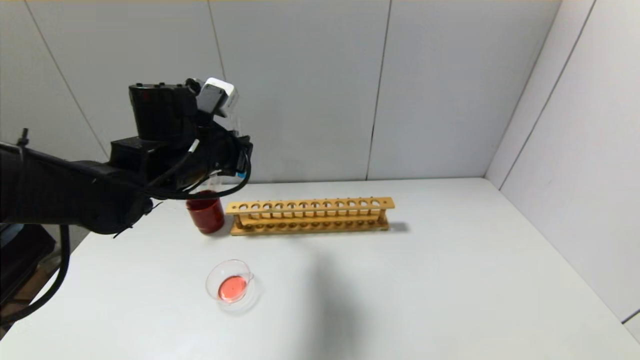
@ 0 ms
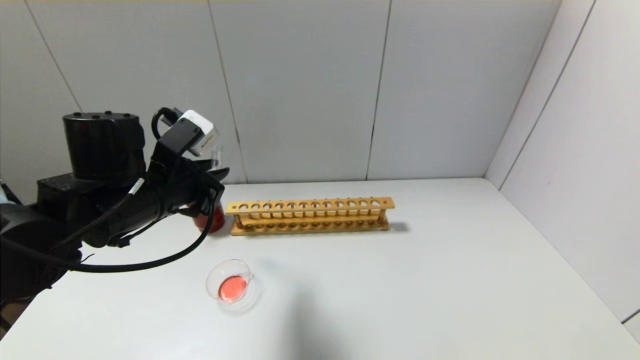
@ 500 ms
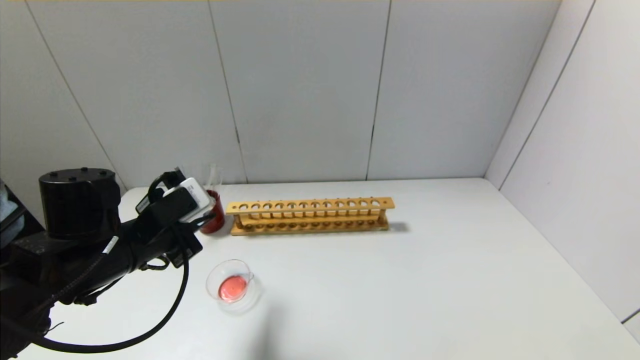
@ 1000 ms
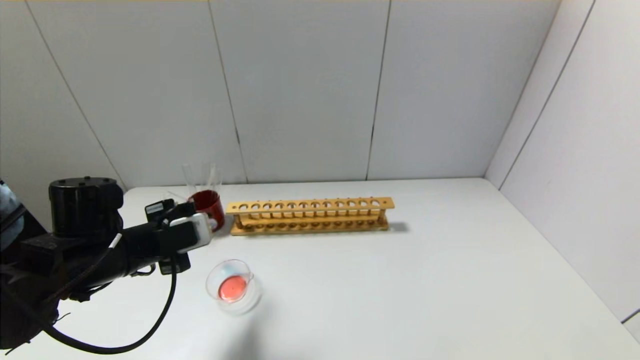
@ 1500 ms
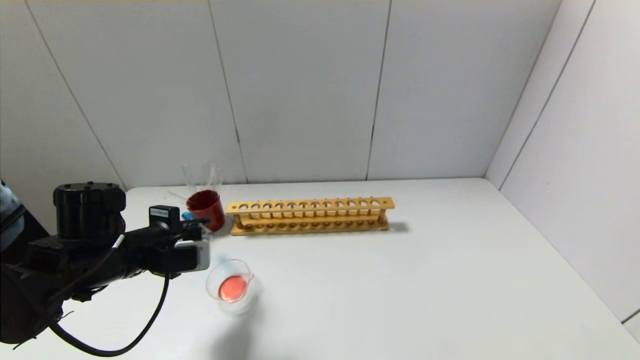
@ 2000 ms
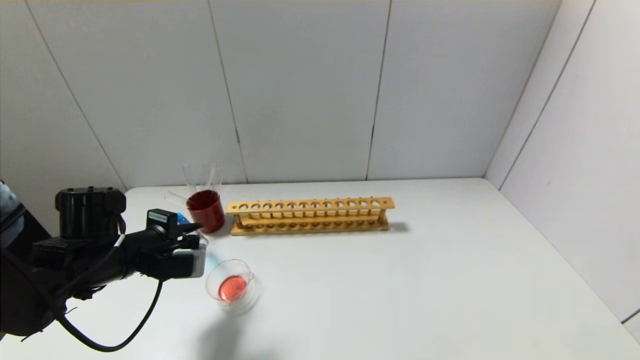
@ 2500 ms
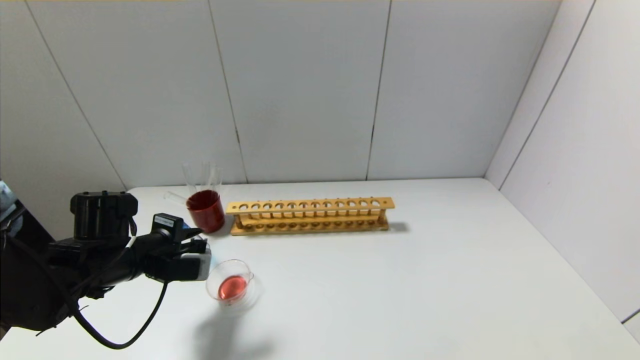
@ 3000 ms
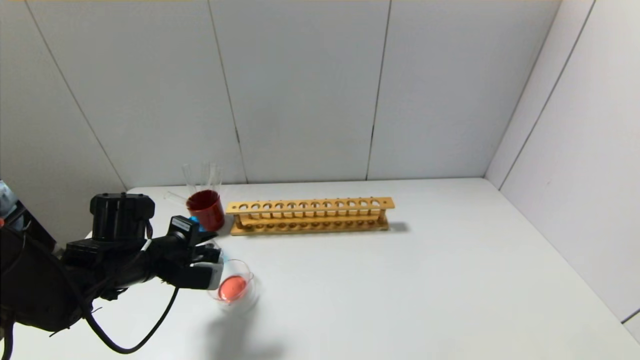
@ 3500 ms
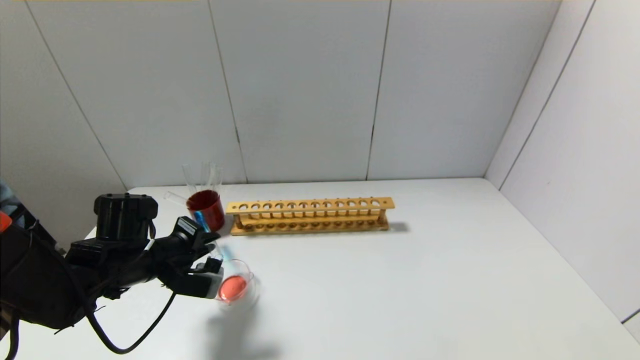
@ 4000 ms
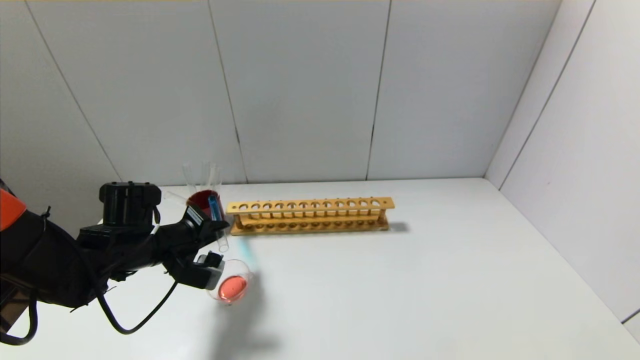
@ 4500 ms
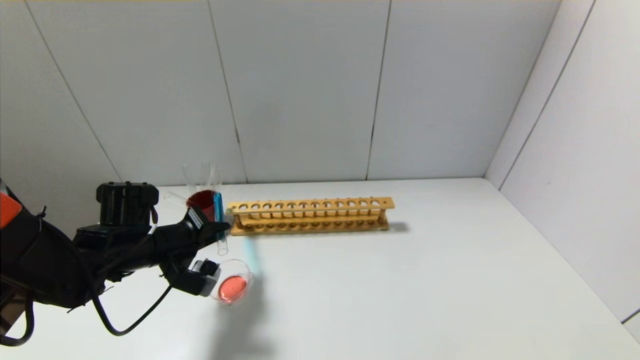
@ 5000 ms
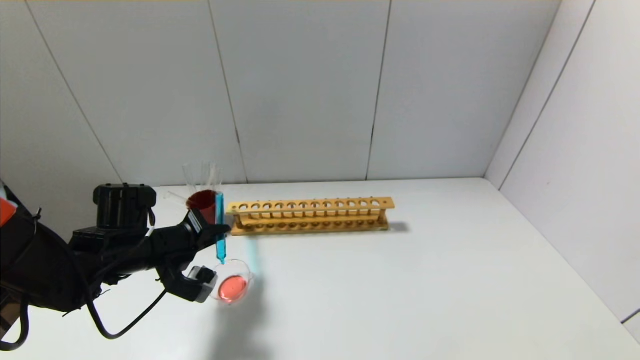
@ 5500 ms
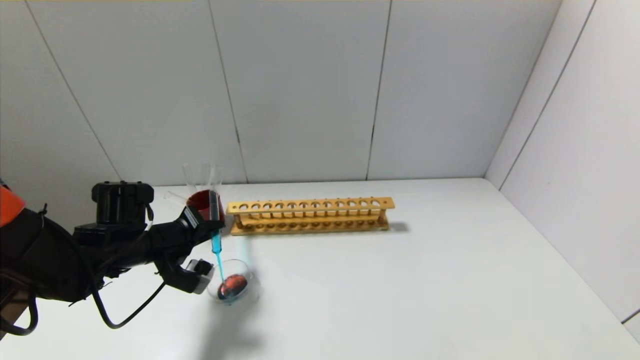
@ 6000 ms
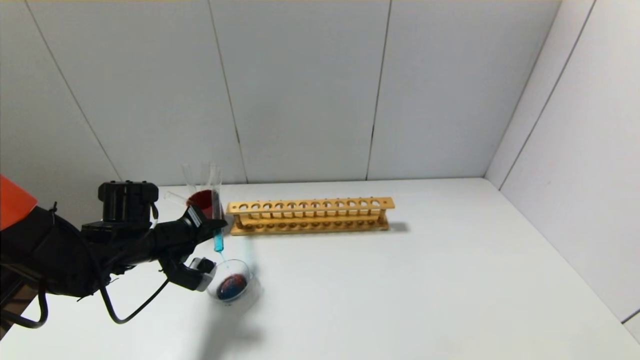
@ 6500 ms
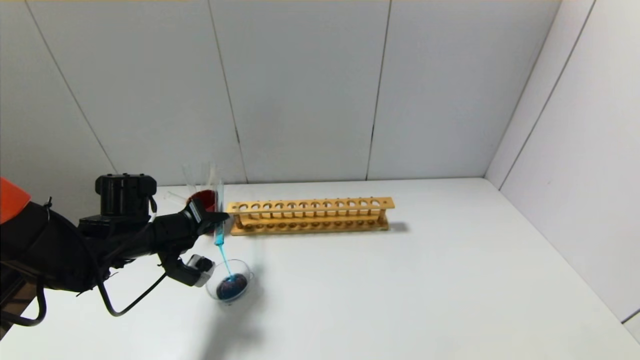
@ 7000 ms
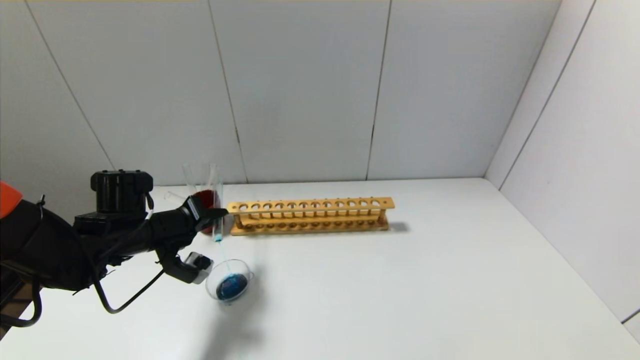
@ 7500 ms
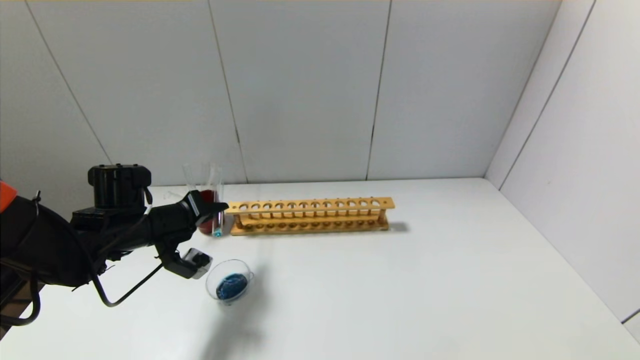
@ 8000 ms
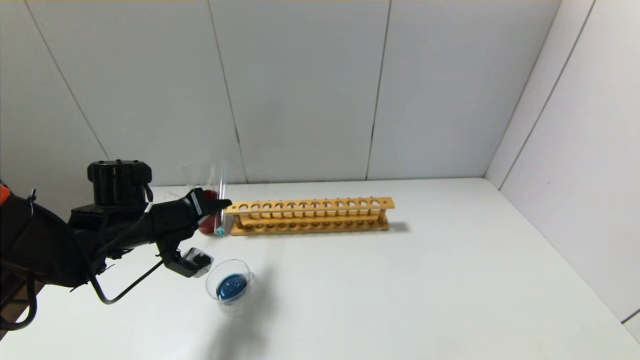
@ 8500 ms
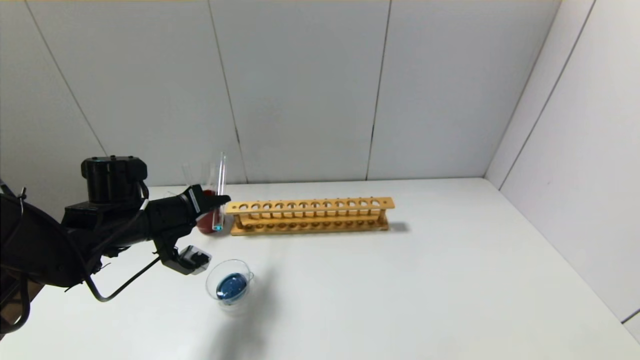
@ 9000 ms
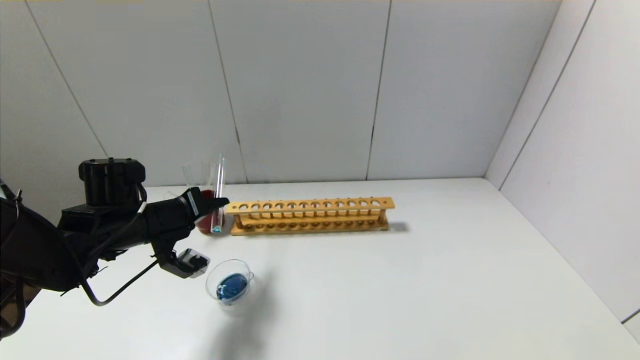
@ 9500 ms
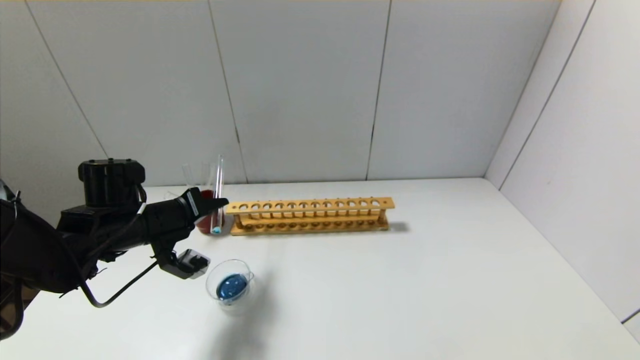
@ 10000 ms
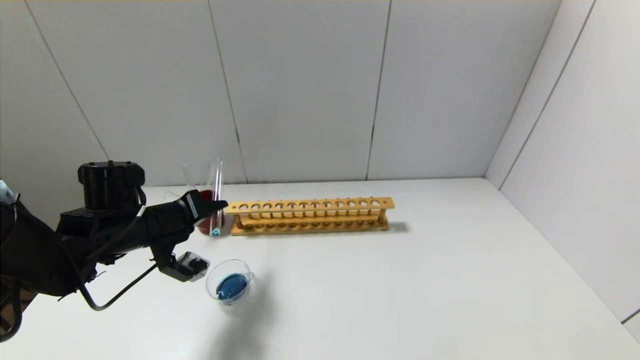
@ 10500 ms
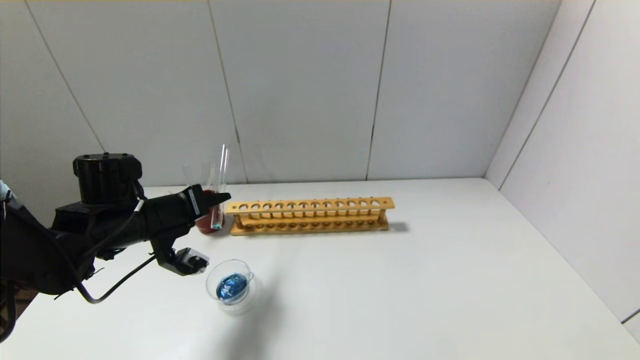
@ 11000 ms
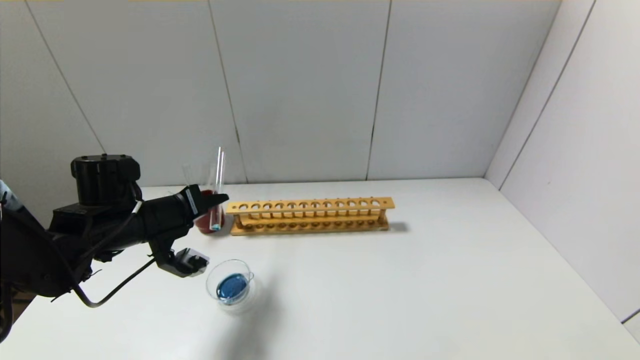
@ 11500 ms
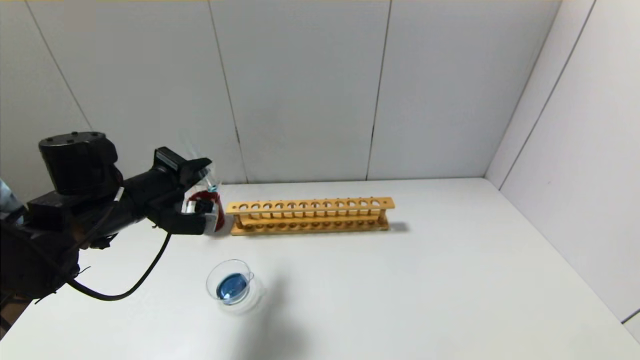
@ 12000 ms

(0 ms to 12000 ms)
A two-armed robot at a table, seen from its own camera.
Step, 0 ms - 11500 ms: Pour the blue reagent into the graduated cylinder with the left gripper.
0 ms - 2000 ms: The left gripper is displaced downward, to the left and backward by about 15 cm.
6000 ms - 8000 ms: The grippers make only small movements.
8000 ms - 10000 ms: The grippers make only small movements.
10000 ms - 12000 ms: The left gripper shifts by approximately 5 cm.

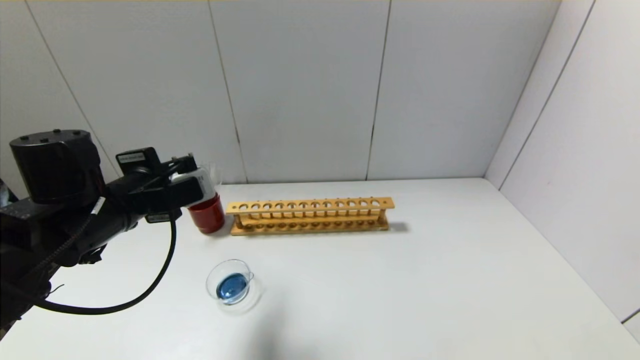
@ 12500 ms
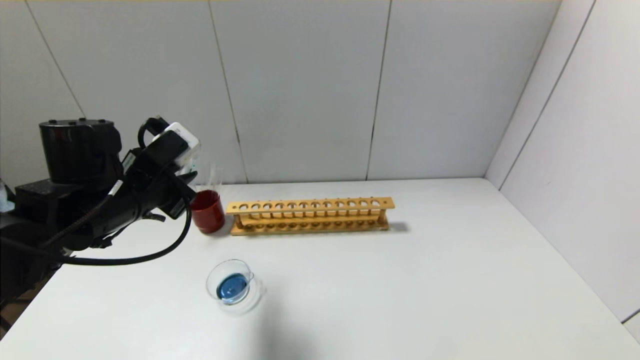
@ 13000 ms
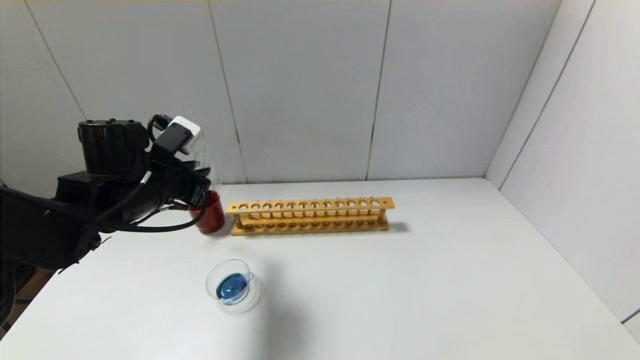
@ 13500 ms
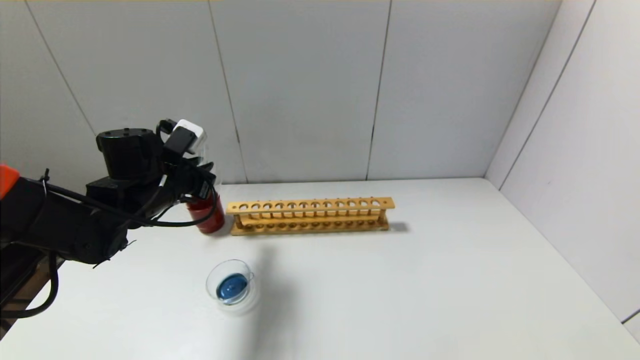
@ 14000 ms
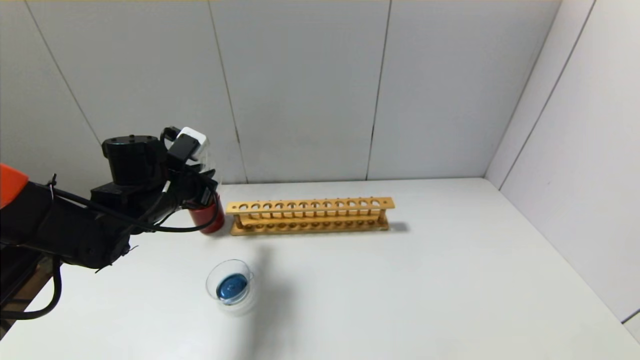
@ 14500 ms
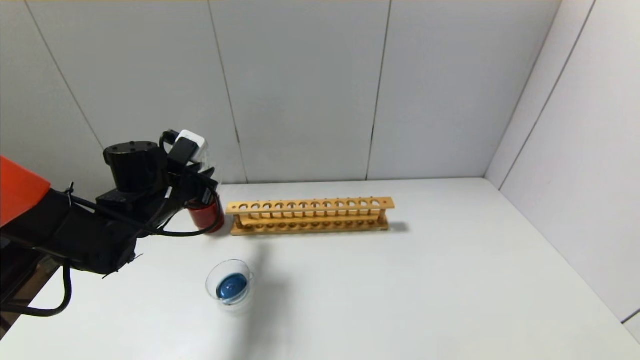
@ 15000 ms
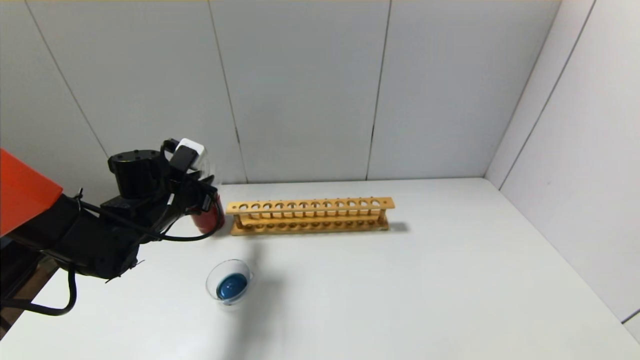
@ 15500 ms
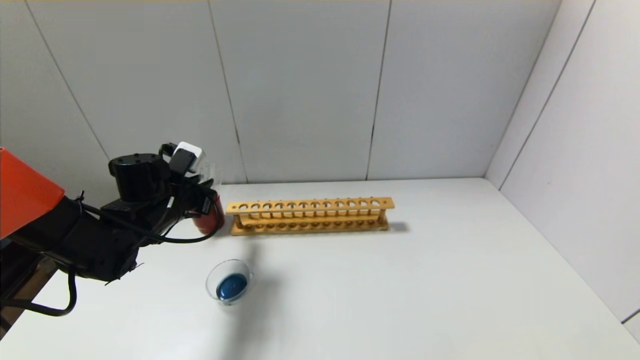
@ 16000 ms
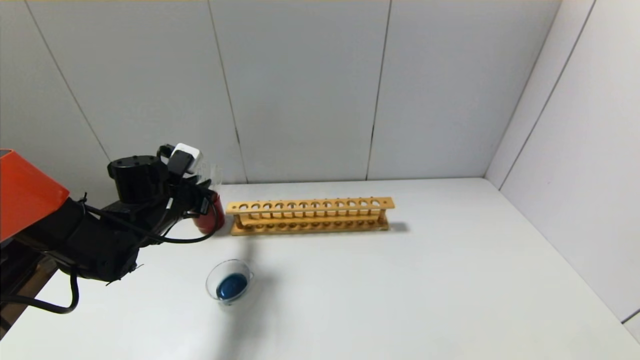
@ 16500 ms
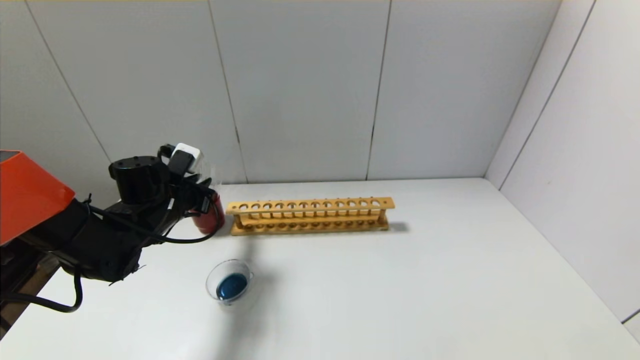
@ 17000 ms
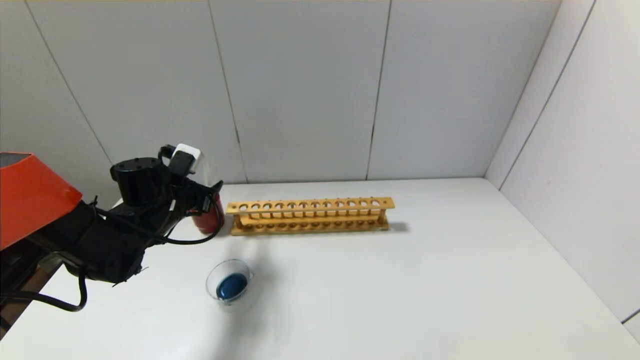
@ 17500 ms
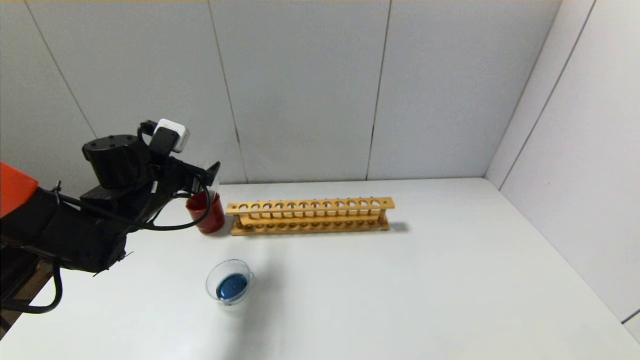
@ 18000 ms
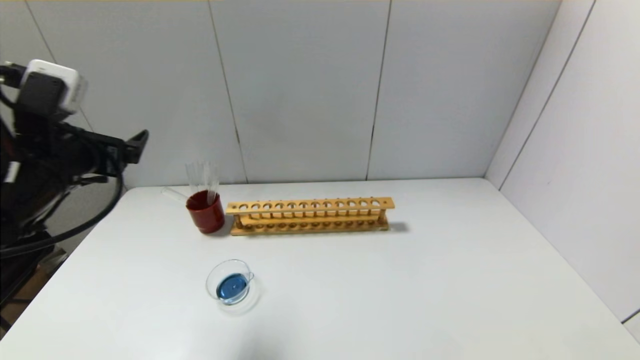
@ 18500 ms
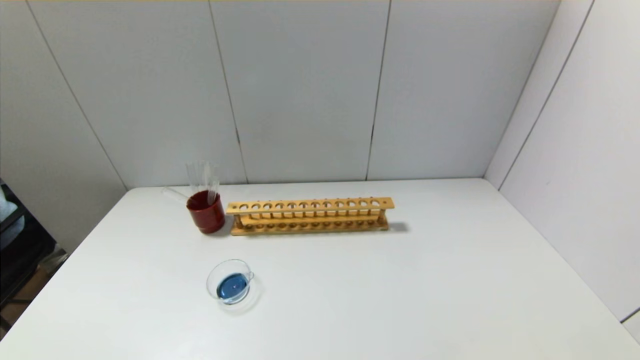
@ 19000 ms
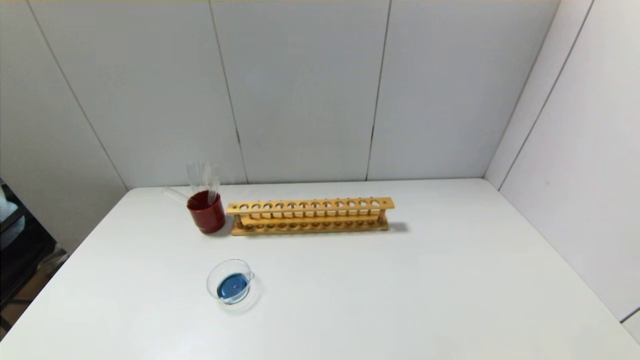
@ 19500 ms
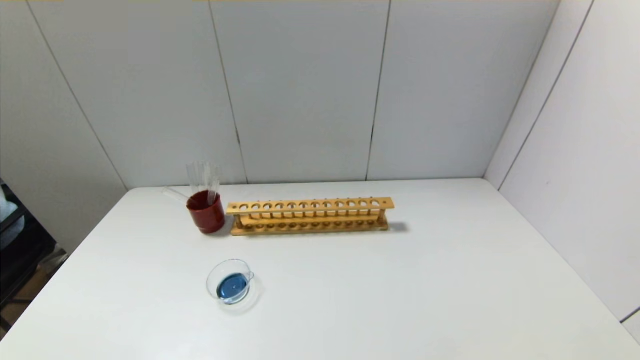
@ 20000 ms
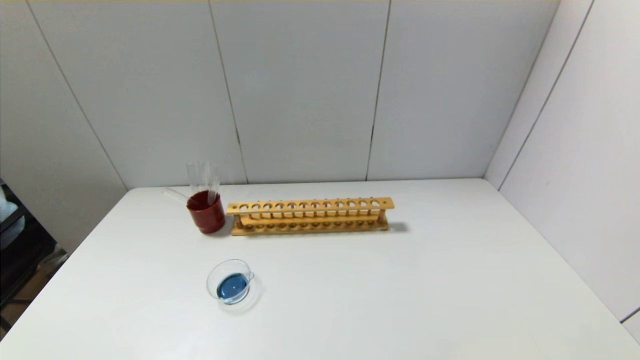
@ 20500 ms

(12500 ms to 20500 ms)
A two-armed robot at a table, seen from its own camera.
Step, 12500 ms - 17000 ms: Place the test tube into the brown cup with the left gripper.
12500 ms - 14500 ms: The left gripper travels forward by approximately 10 cm.
14500 ms - 16500 ms: The grippers move only a little.
16500 ms - 18500 ms: The left gripper is displaced upward and backward by approximately 20 cm, and opens up.
18500 ms - 20500 ms: The left gripper goes approximately 30 cm backward and downward.
